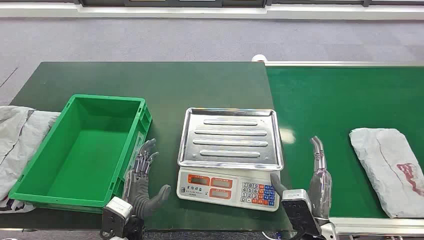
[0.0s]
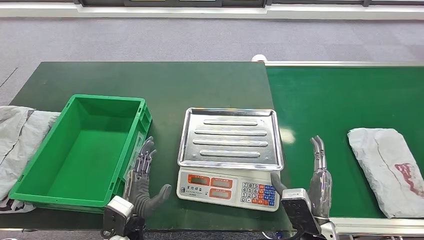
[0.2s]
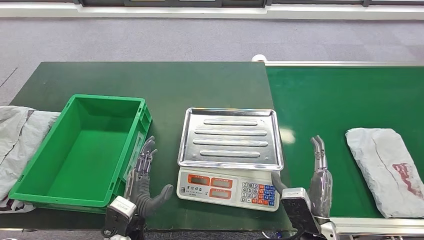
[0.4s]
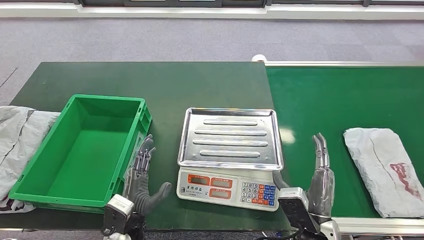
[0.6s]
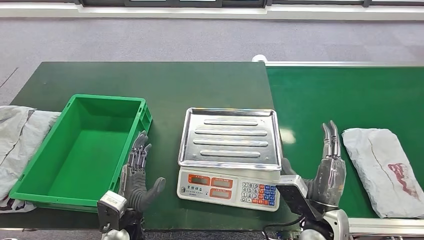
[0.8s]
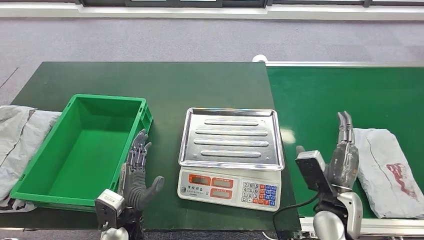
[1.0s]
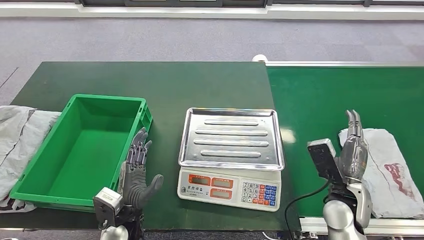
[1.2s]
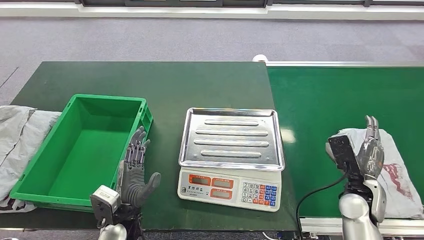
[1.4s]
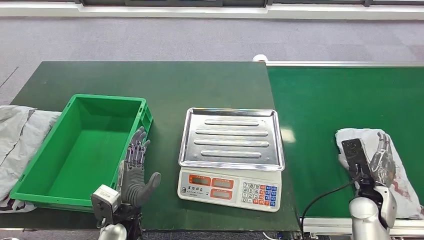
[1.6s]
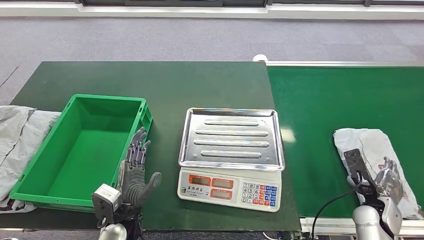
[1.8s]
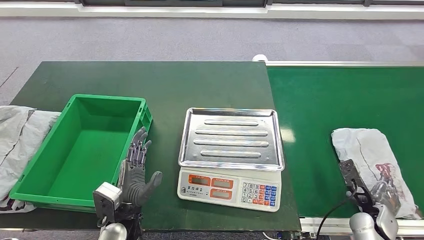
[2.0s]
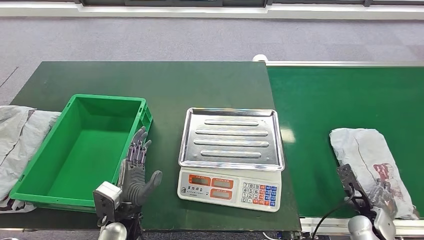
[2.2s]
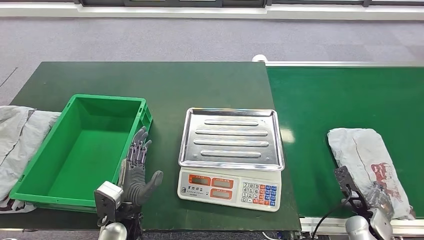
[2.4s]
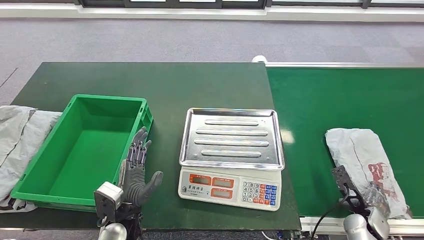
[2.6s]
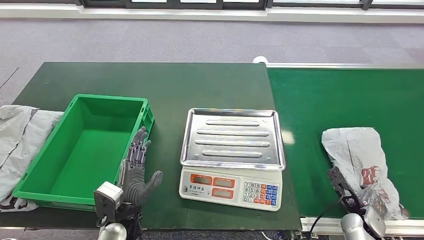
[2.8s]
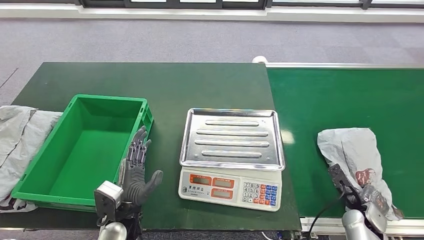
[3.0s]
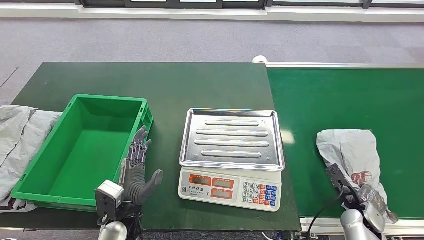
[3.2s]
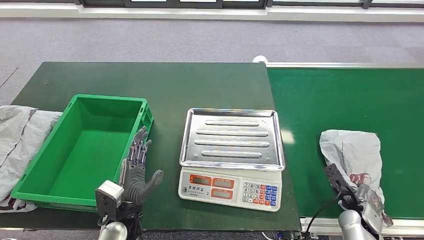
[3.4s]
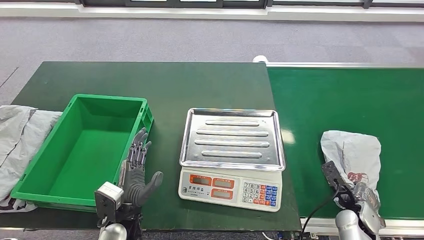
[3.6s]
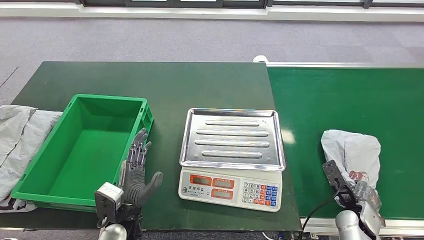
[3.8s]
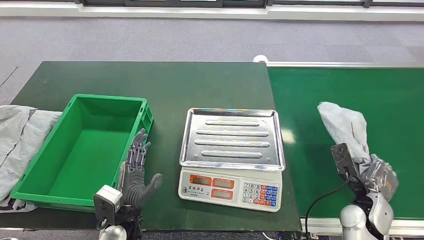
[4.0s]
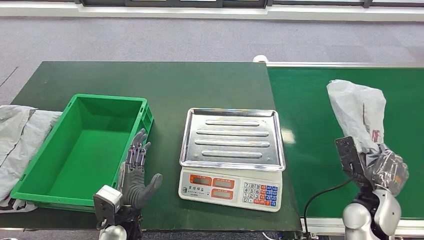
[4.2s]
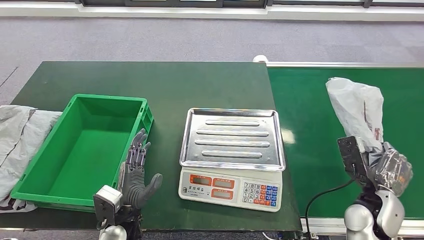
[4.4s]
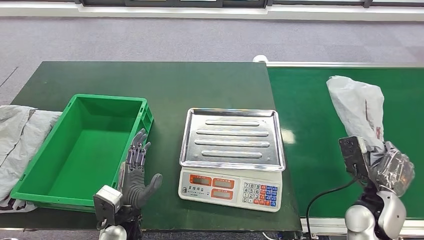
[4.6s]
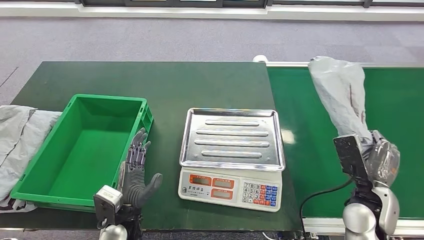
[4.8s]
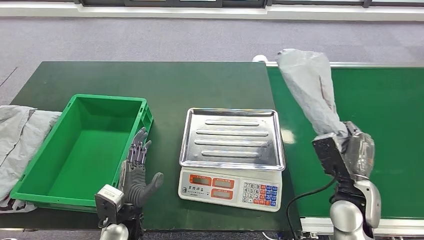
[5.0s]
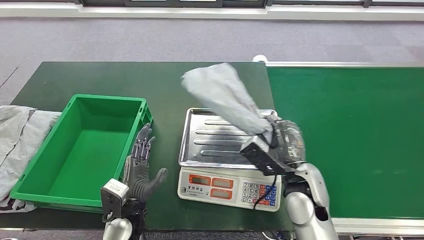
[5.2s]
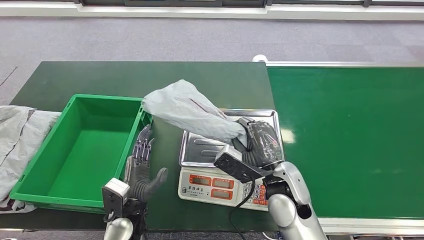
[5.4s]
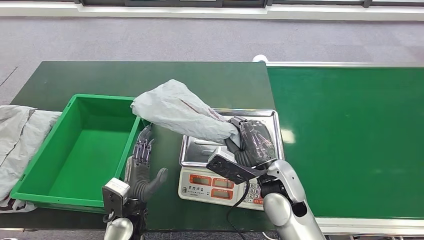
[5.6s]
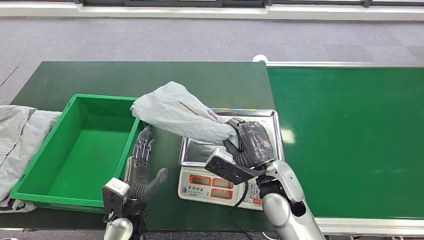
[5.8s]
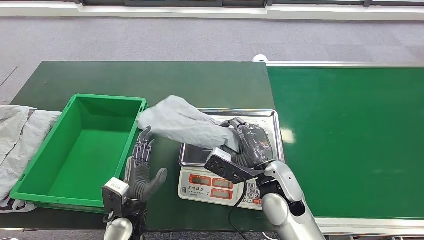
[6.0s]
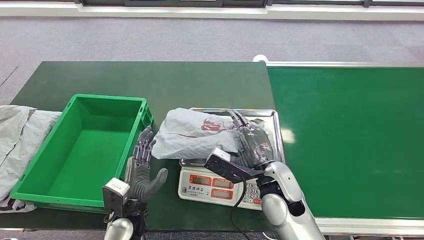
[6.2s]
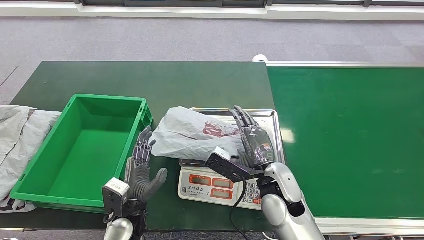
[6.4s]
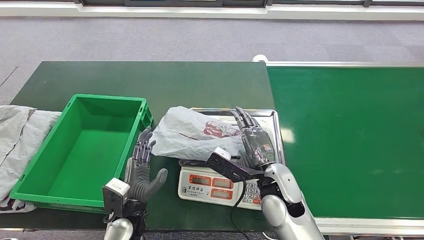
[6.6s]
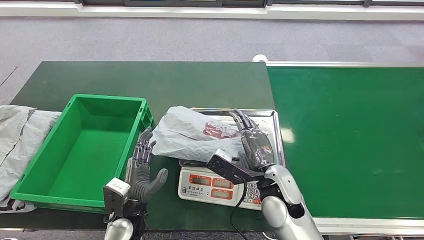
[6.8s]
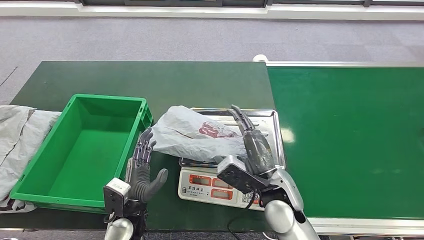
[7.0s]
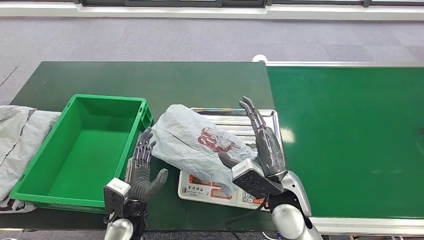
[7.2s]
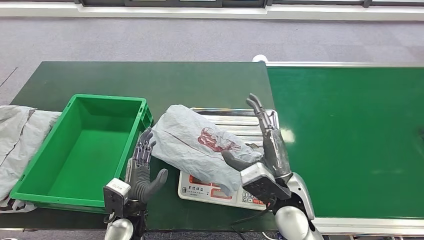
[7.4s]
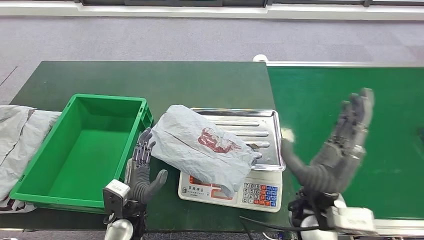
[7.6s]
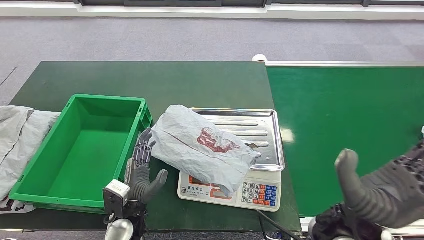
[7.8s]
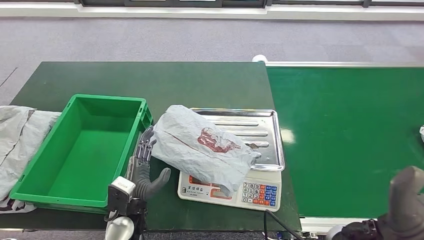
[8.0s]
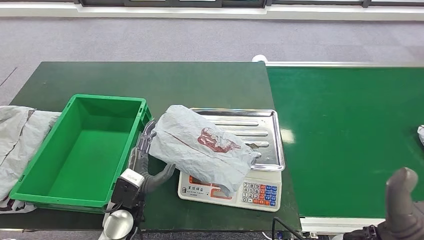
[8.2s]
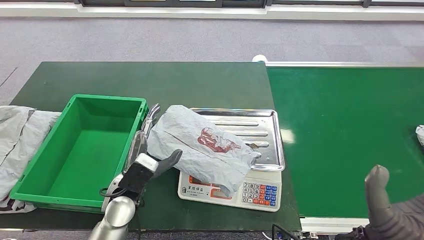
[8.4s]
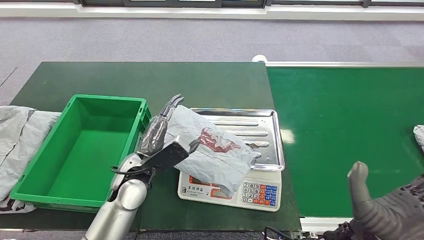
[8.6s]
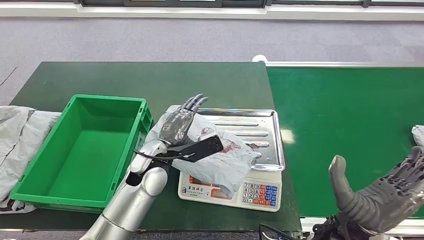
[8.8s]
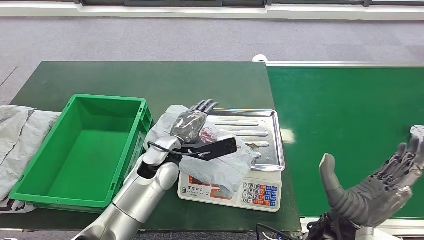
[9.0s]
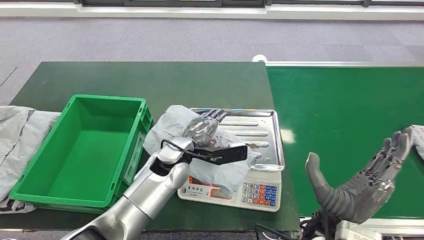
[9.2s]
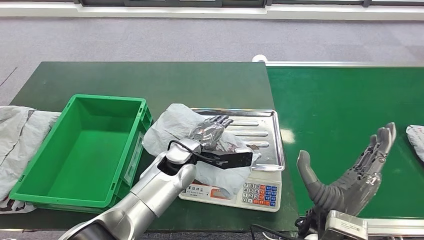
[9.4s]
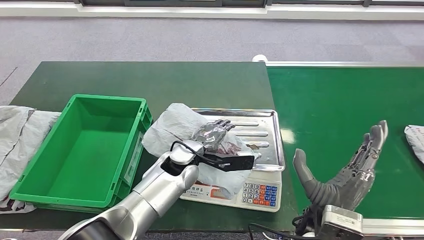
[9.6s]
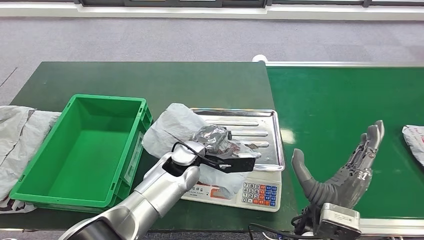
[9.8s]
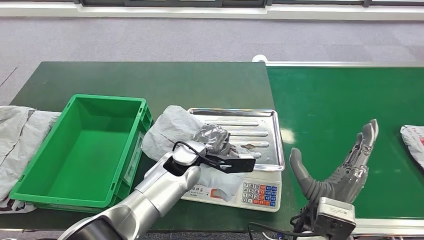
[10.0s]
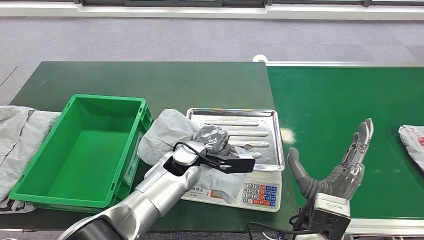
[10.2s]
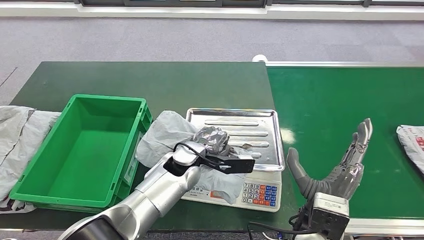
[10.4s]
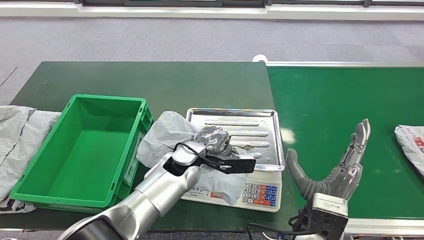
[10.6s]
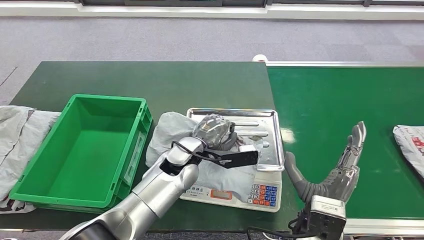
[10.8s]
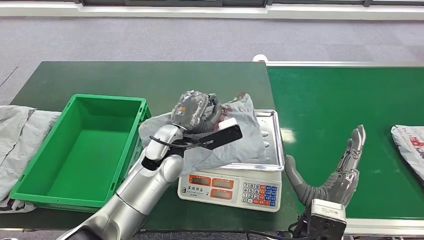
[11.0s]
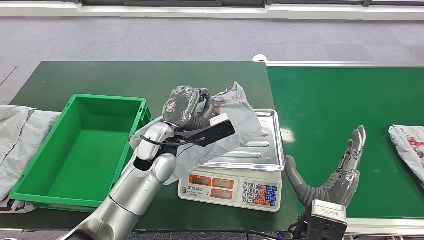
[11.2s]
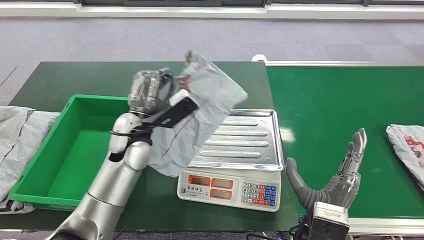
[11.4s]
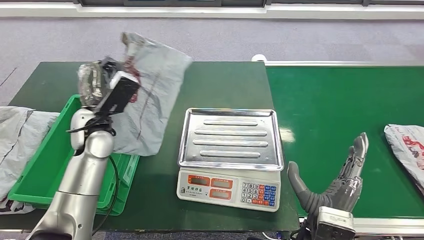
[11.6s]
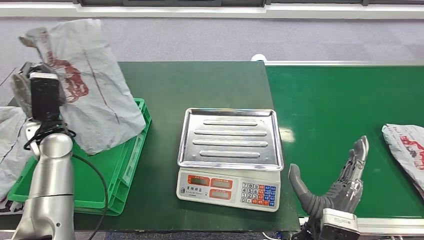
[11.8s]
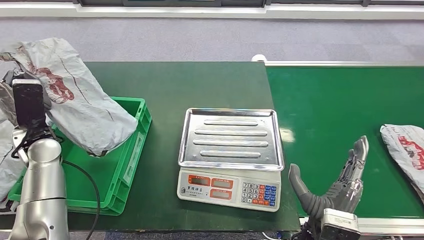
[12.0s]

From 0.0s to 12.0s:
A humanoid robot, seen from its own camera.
Step, from 0.0s to 5.0s: Take the parcel off the conveyor belt.
Step, from 5.2s to 9.0s: Place the parcel onto the inbound machine.
Step, from 9.2s to 11.4s: Pick up the parcel from the inbound machine.
From 1.6s to 3.0s: The right hand shifts some 10 cm downward.
From 3.0s to 4.4s: The right hand is displaced upward by some 10 cm.
From 6.0s to 7.6s: The right hand heads backward, covering about 5 cm.
From 7.6s to 9.0s: The left hand moves forward, upward and to the right, approximately 20 cm. The right hand goes approximately 5 cm backward, and reaches some 5 cm upward, then returns.
From 9.0s to 10.4s: The left hand ends up roughly 5 cm from where it was.

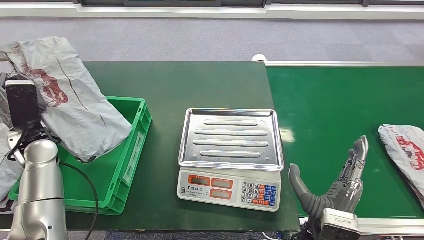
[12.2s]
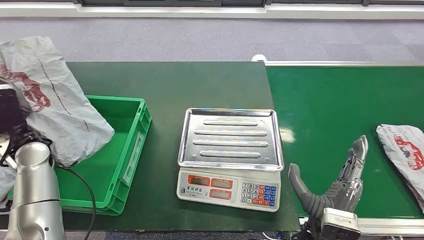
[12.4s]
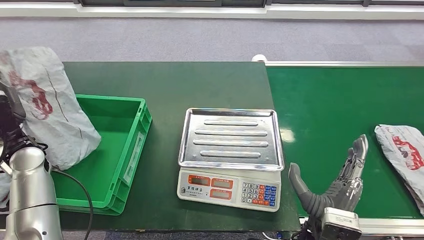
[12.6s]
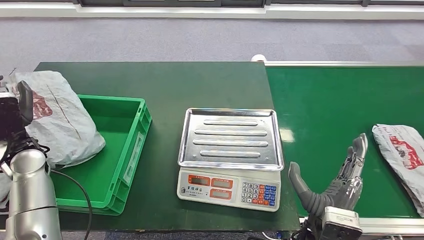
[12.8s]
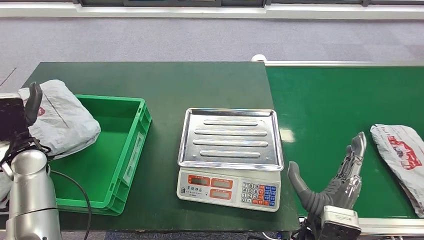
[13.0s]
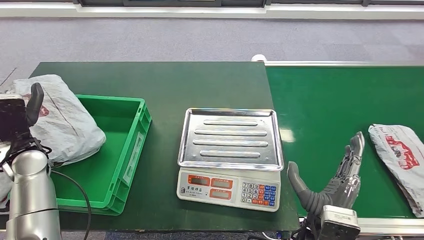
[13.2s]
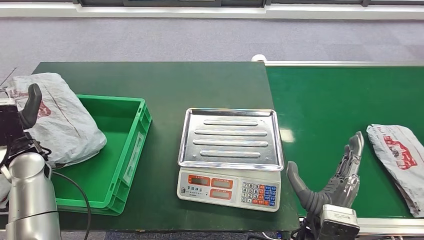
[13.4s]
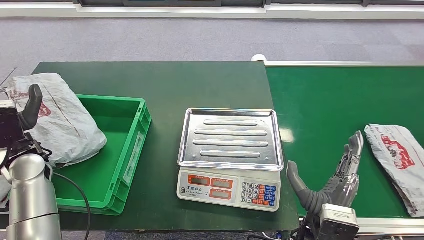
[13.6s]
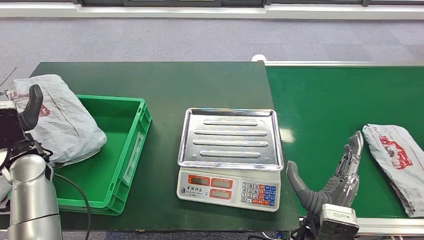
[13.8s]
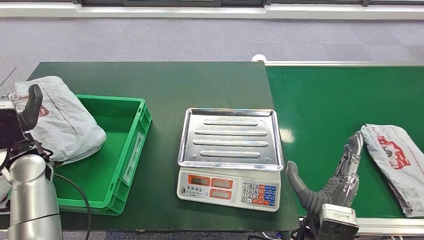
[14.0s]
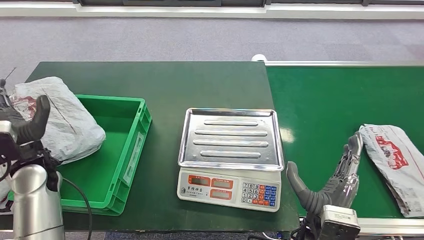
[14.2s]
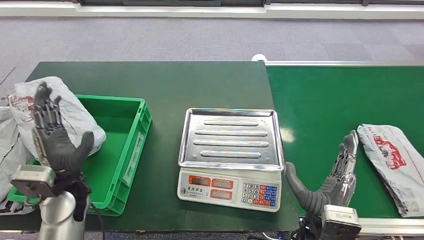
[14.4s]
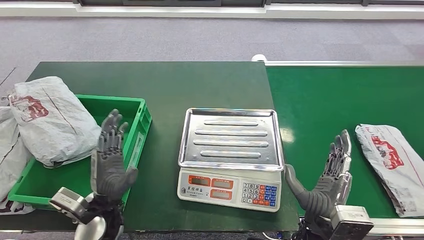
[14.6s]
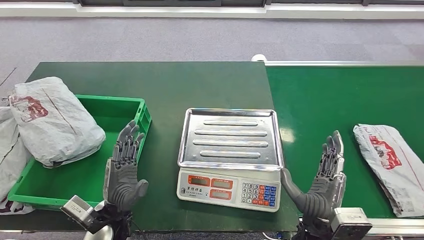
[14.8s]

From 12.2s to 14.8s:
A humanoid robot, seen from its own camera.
Step, from 12.2s to 14.8s: Put the parcel inside the courier box.
From 12.2s to 13.4s: The hands stay close to where they were, moving slightly.
From 13.4s to 14.8s: The left hand travels to the right and backward by some 25 cm.

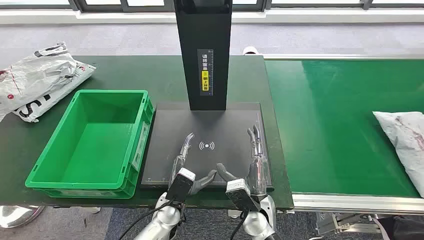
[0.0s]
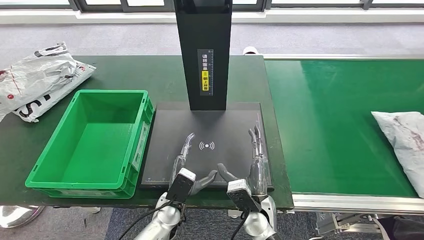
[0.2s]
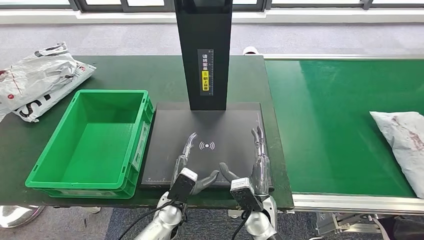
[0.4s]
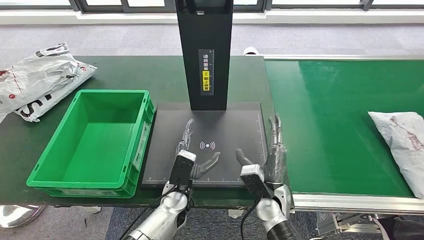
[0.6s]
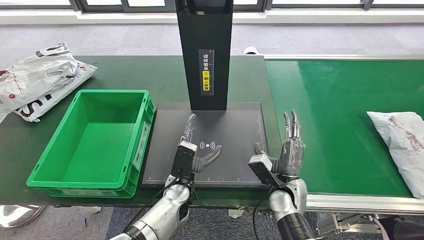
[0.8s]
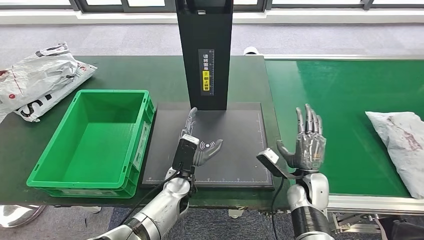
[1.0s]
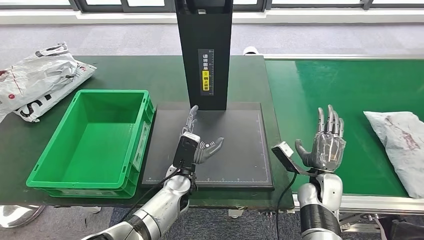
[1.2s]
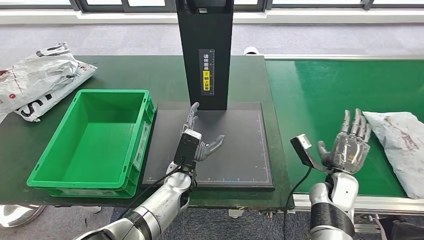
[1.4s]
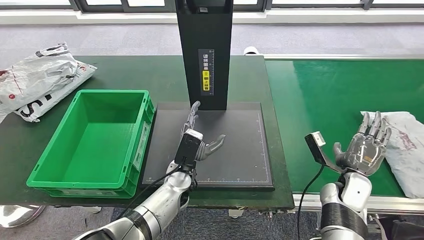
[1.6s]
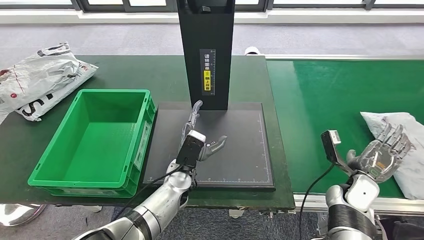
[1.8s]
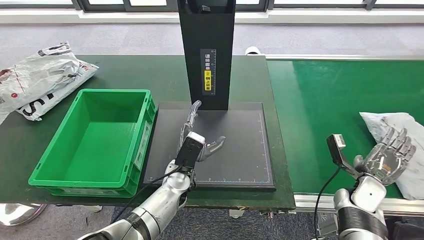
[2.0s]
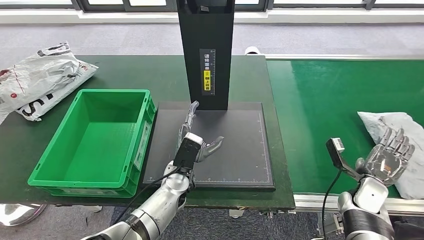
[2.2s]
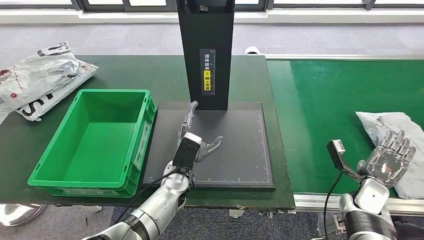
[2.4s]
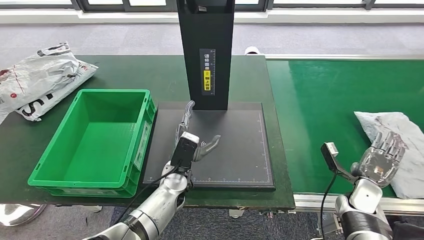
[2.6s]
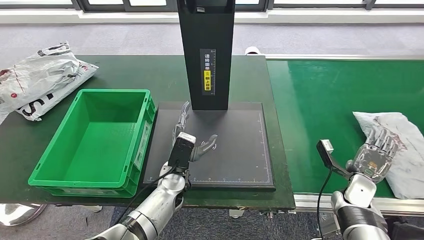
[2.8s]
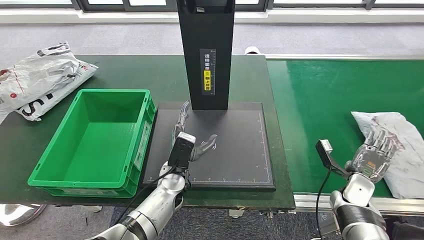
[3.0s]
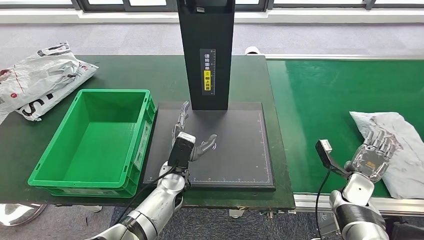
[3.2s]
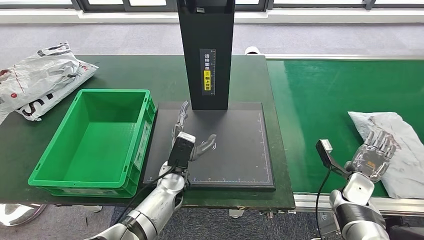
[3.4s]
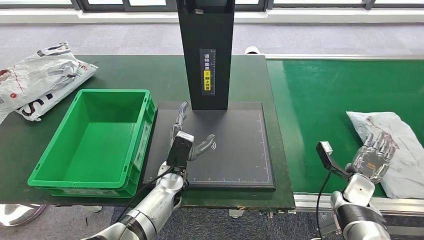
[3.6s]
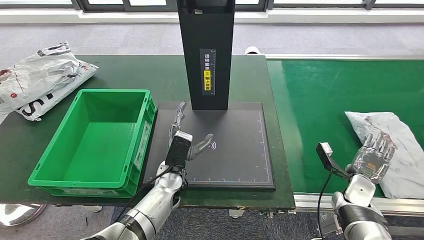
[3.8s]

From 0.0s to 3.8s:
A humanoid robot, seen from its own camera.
From 1.2s to 2.6s: The right hand shifts roughly 10 cm to the right.
From 2.6s to 3.8s: The hands move only a little.
